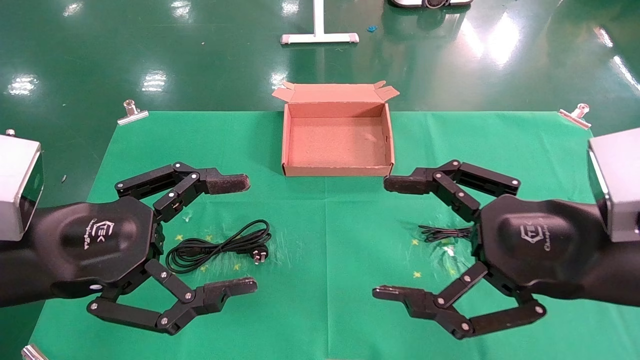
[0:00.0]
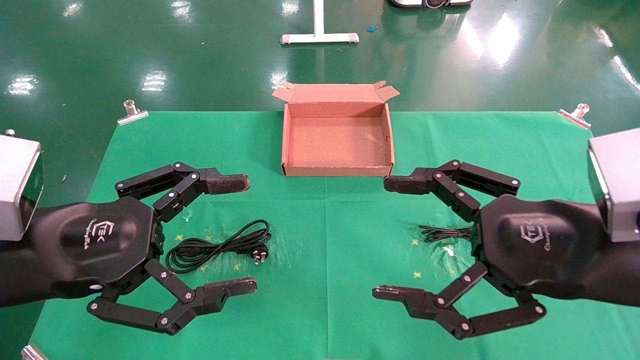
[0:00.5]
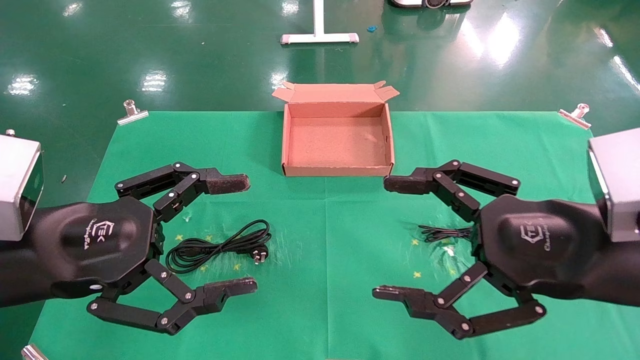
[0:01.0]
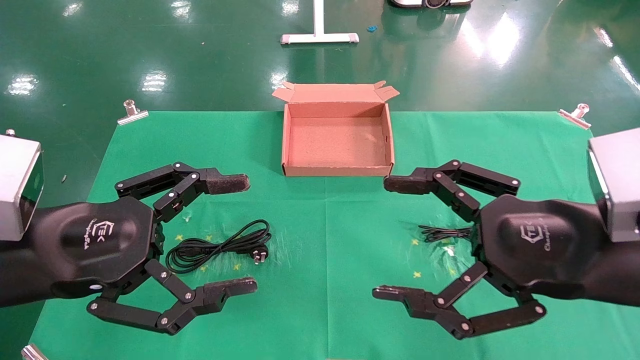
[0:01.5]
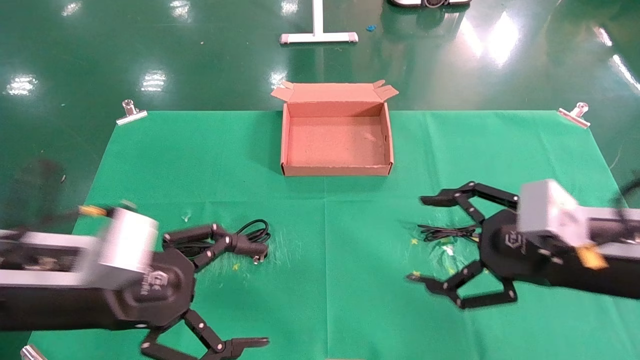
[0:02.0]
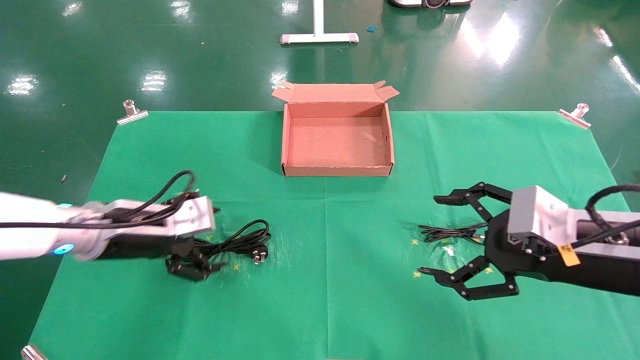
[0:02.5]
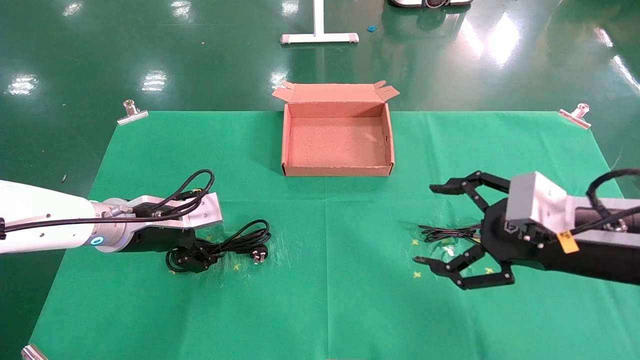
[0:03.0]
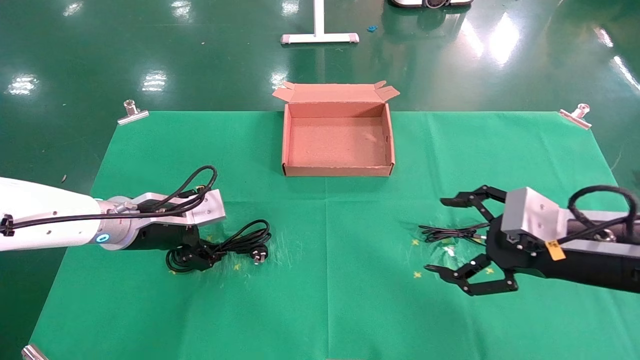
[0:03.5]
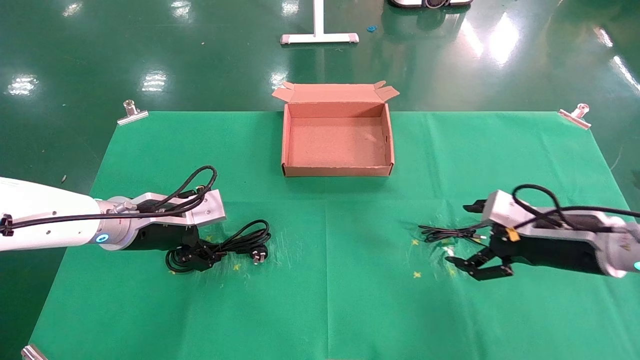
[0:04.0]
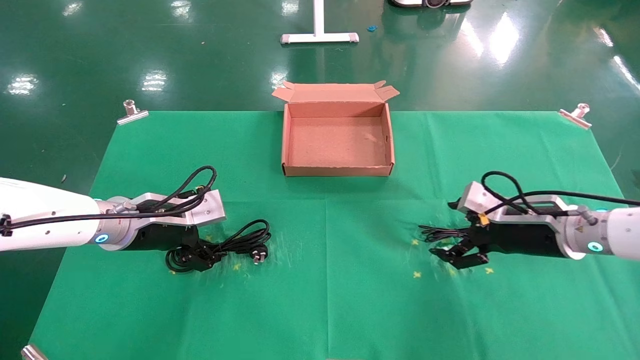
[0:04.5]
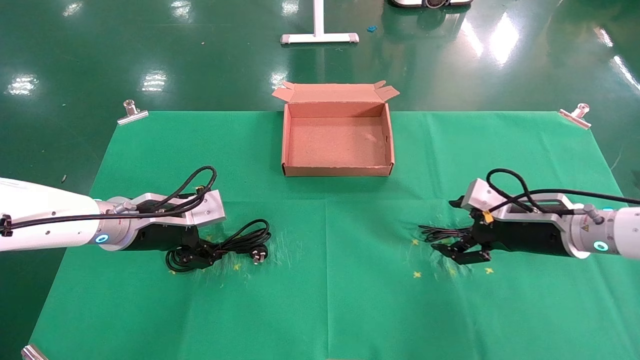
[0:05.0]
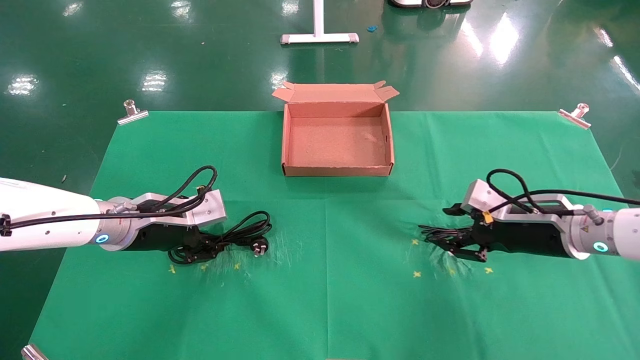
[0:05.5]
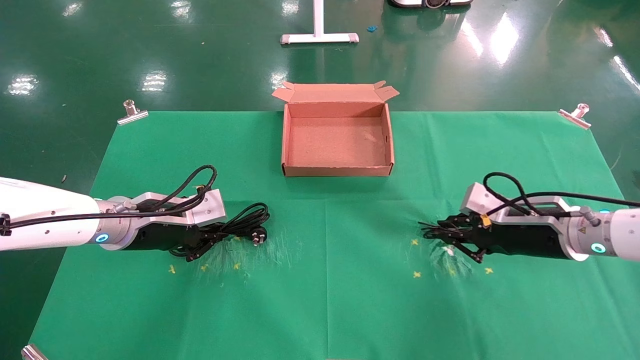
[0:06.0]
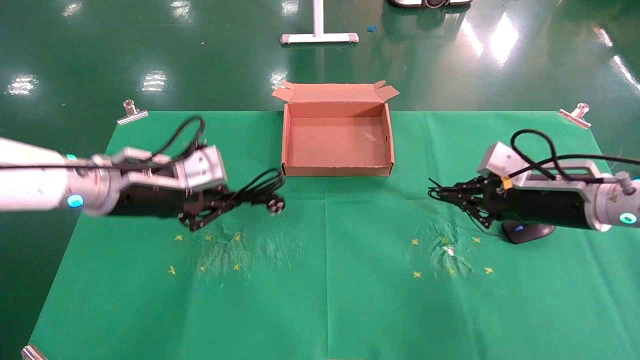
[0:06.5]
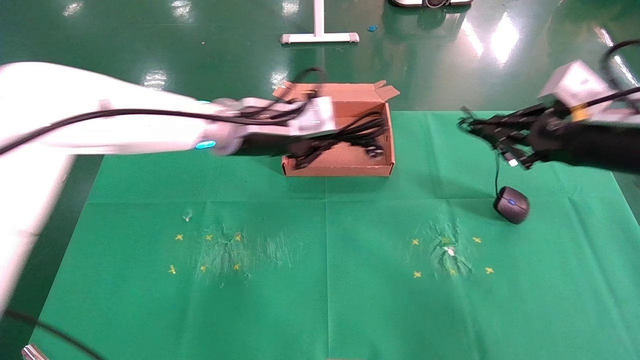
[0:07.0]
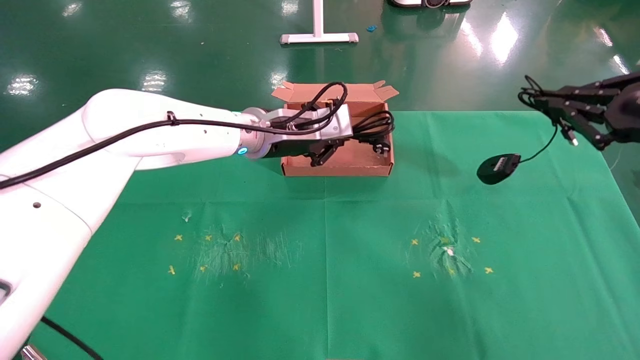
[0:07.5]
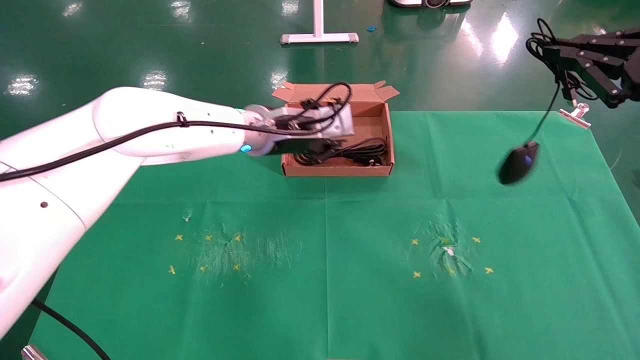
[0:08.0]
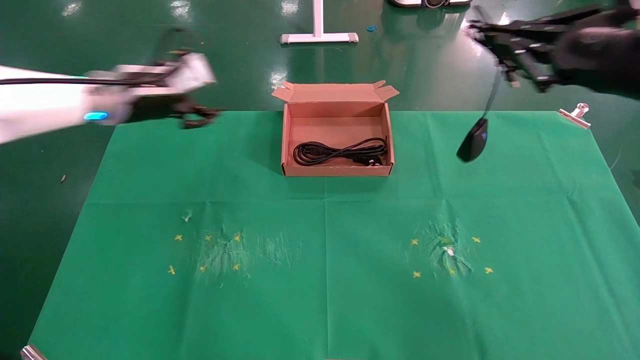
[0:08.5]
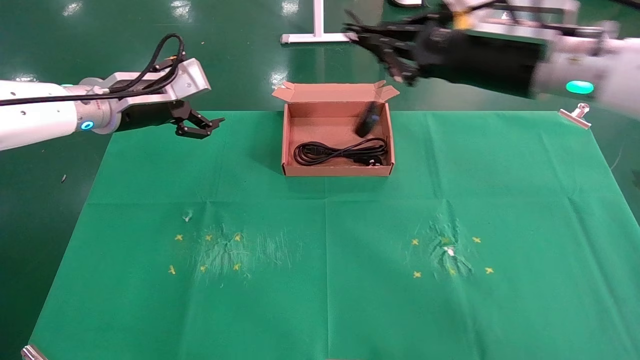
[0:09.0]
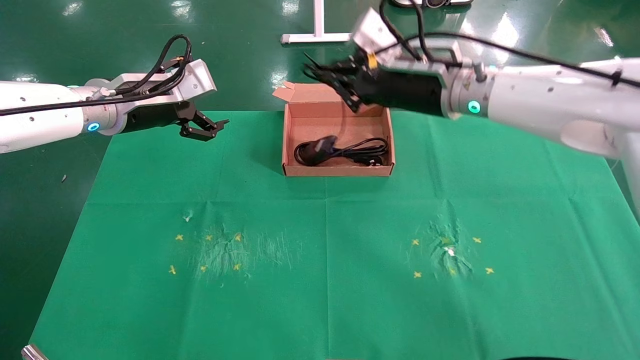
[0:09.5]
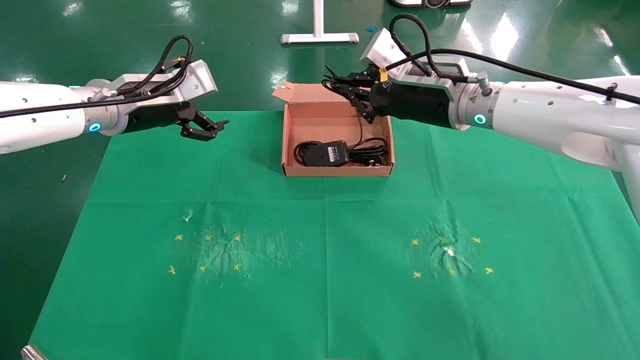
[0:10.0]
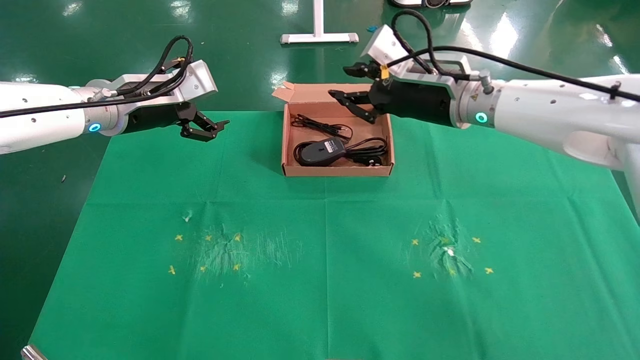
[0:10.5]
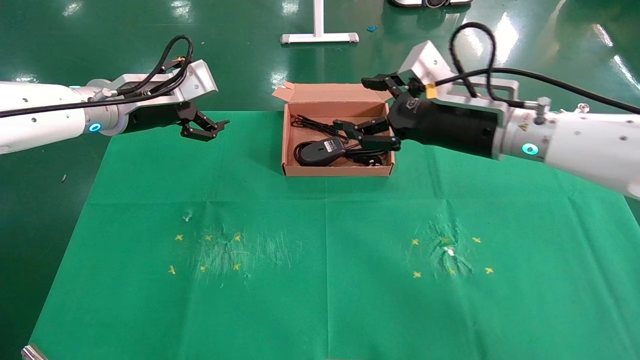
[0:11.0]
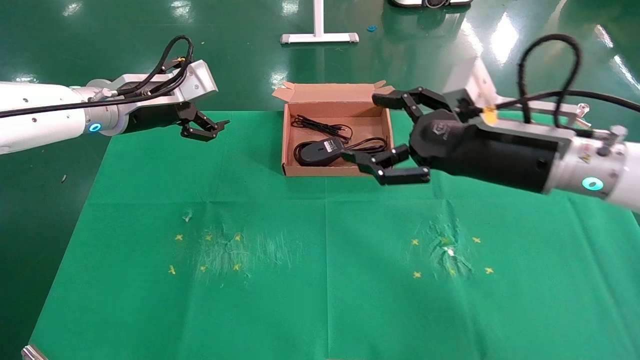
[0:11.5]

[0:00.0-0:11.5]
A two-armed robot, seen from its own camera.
Task of the whole recording: grasp data cable left put into box grasp mouse right put into box.
Step, 0:02.0 to 0:06.0: Simultaneously pick up the mouse and power cord from the accessory packaging area.
Step, 0:06.5 to 0:10.0: Place the mouse and power cord into the box.
0:00.0 to 0:02.0: The right gripper shifts by approximately 5 cm. The left gripper is displaced downward by roughly 5 cm.
0:02.0 to 0:04.0: The right gripper moves forward and downward, some 10 cm. The left gripper is displaced forward by roughly 15 cm.
0:04.0 to 0:06.0: The left gripper closes its fingers. Meanwhile the right gripper closes up.
0:06.0 to 0:07.5: The left gripper shifts approximately 20 cm to the right, upward and forward; the right gripper heads upward, backward and to the right, covering about 20 cm.
0:07.5 to 0:09.5: The right gripper is displaced to the left and forward by some 30 cm. Meanwhile the left gripper travels to the left by roughly 20 cm, and opens.
0:09.5 to 0:11.5: The right gripper shifts about 15 cm backward, to the right and downward, and opens.

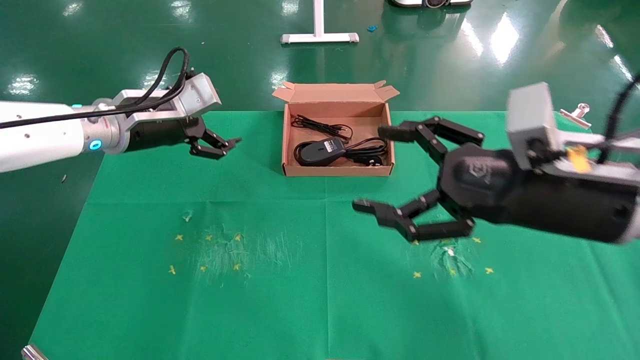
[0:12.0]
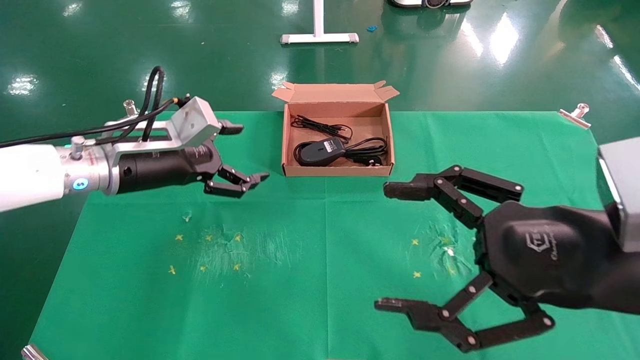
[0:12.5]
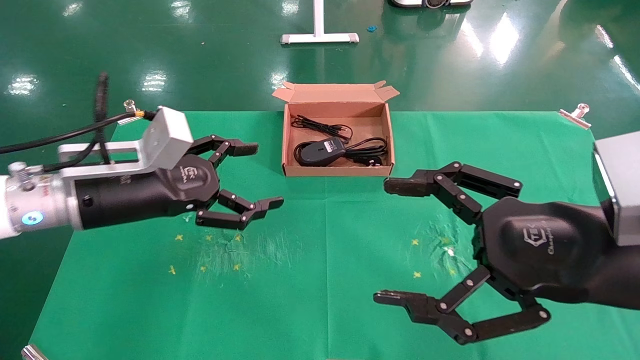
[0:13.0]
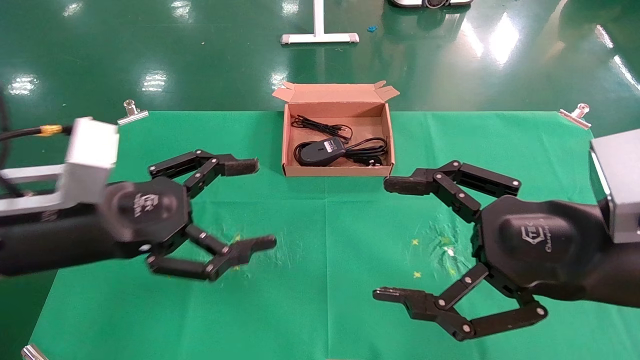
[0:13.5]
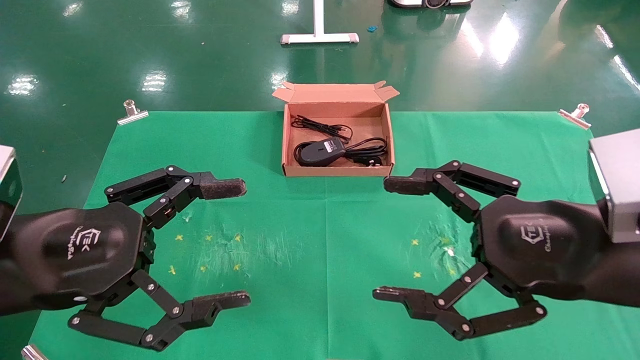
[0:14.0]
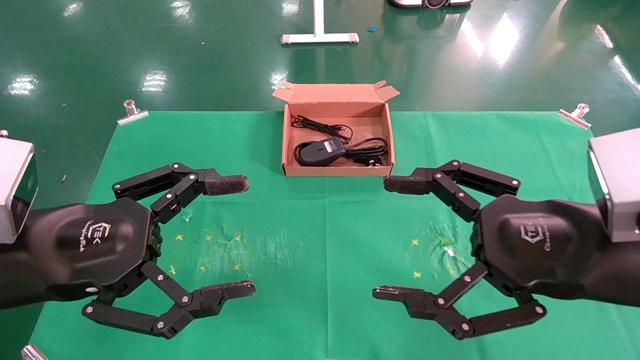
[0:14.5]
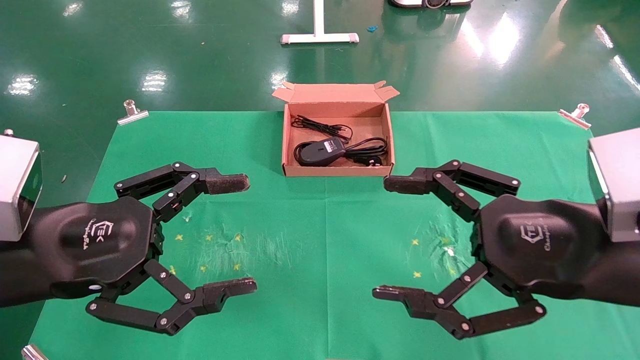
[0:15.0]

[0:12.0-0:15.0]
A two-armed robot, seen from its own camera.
Task of the whole recording: grasp data cable left put into box grasp mouse right put into box.
0:12.0 to 0:13.5: The right gripper moves backward, some 5 cm. Meanwhile the left gripper travels backward by approximately 20 cm.
0:13.5 to 0:15.0: The grippers move only a little.
